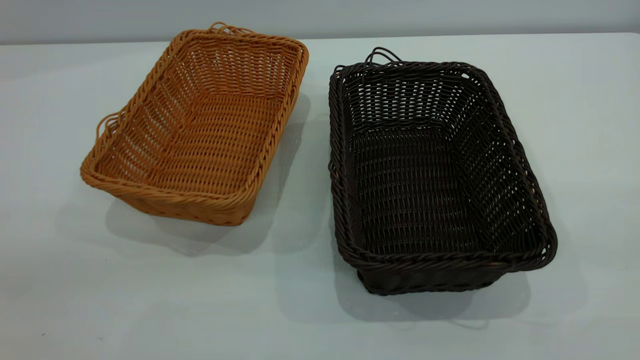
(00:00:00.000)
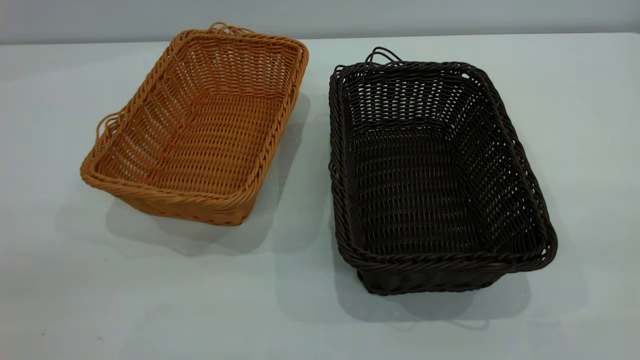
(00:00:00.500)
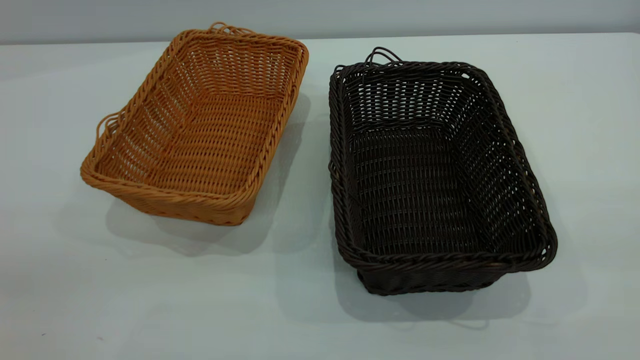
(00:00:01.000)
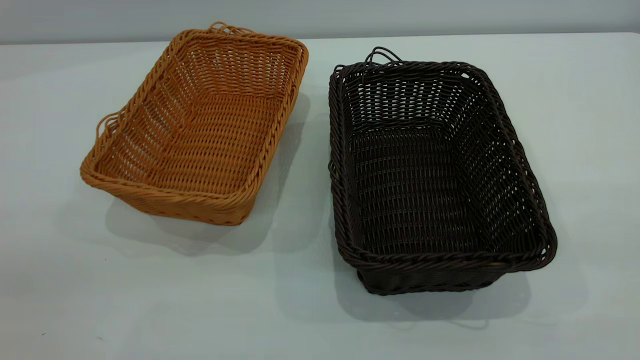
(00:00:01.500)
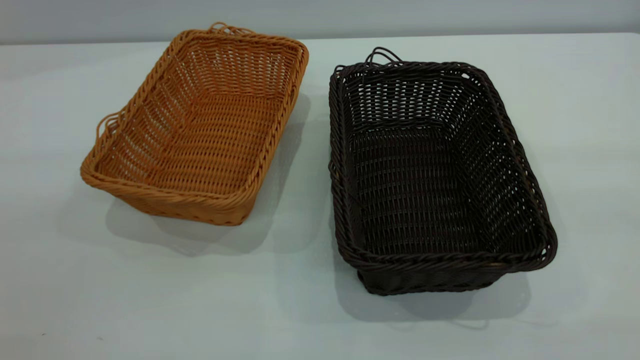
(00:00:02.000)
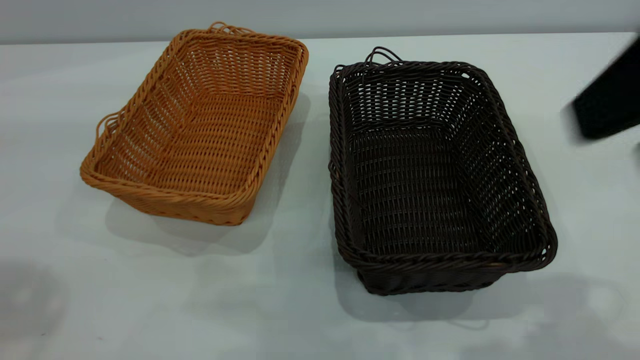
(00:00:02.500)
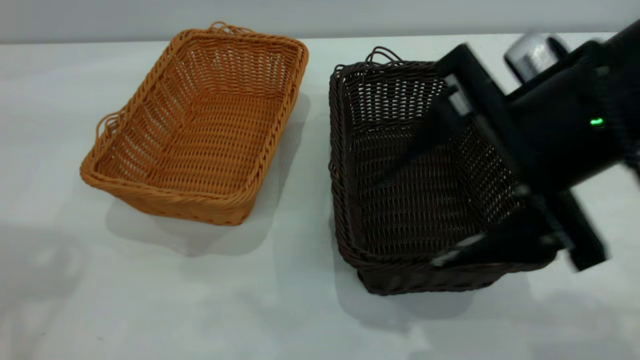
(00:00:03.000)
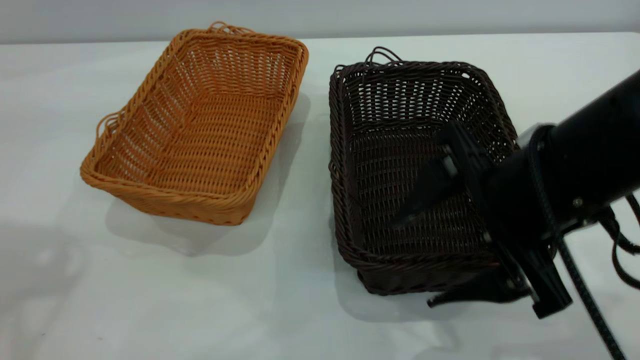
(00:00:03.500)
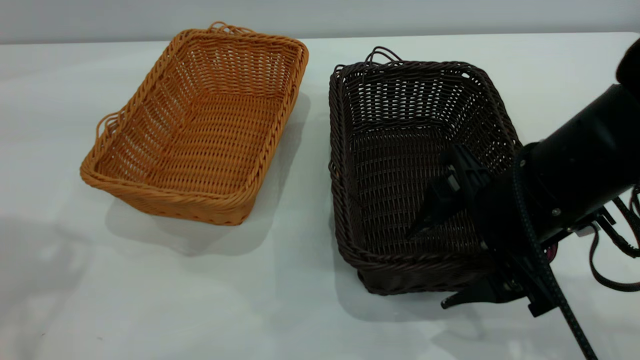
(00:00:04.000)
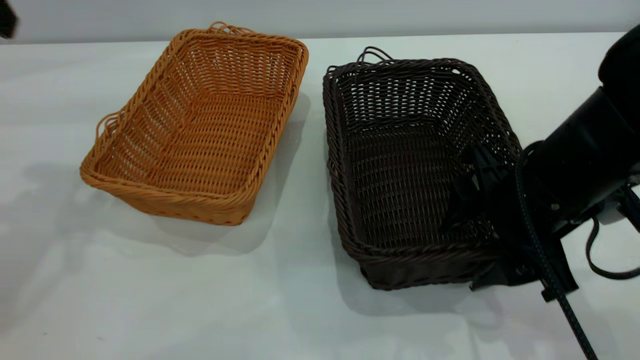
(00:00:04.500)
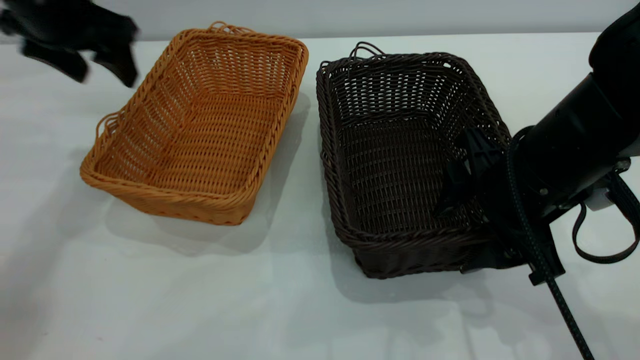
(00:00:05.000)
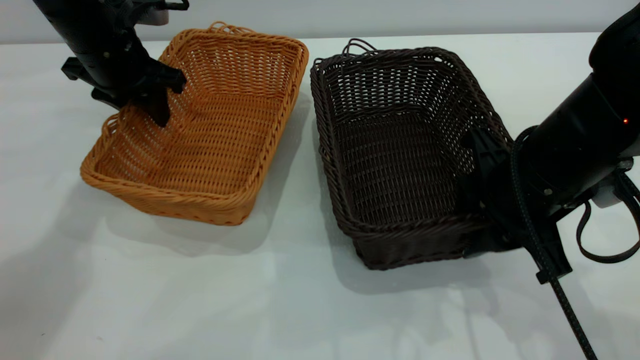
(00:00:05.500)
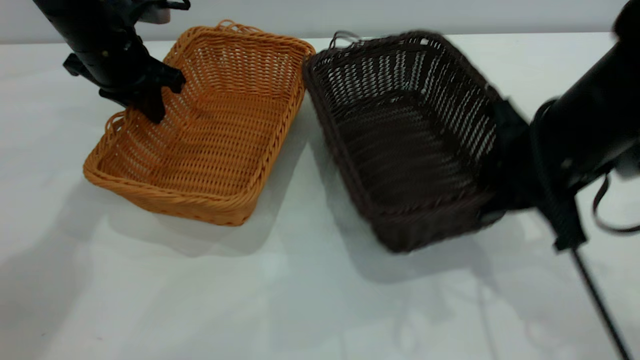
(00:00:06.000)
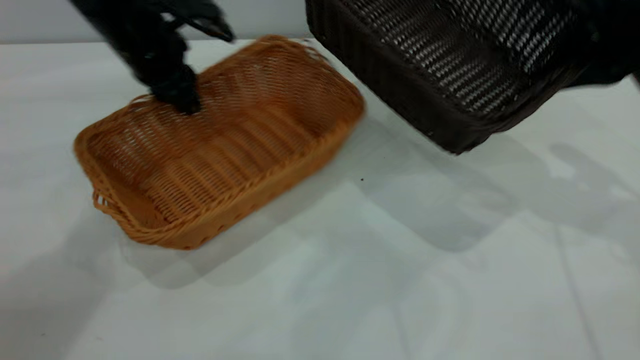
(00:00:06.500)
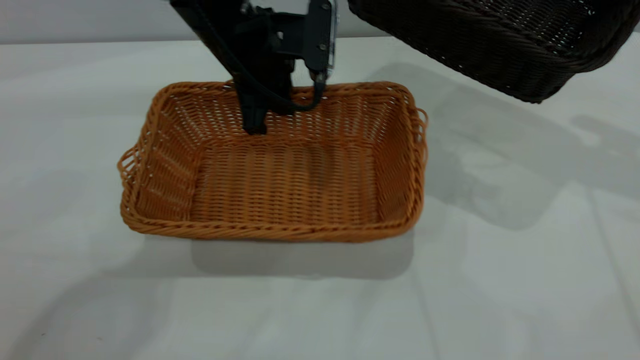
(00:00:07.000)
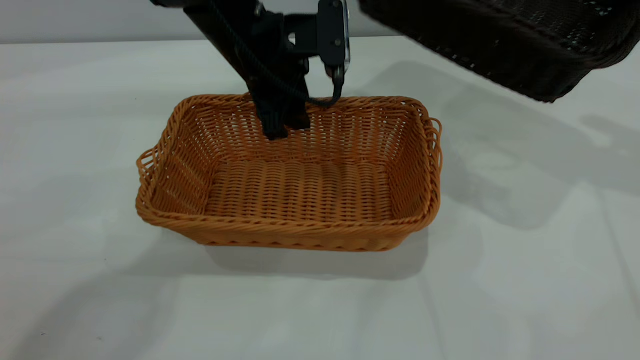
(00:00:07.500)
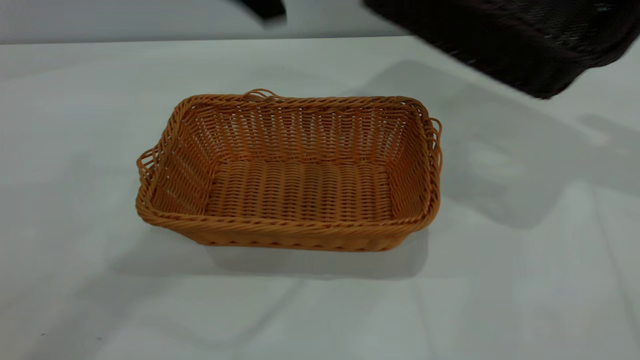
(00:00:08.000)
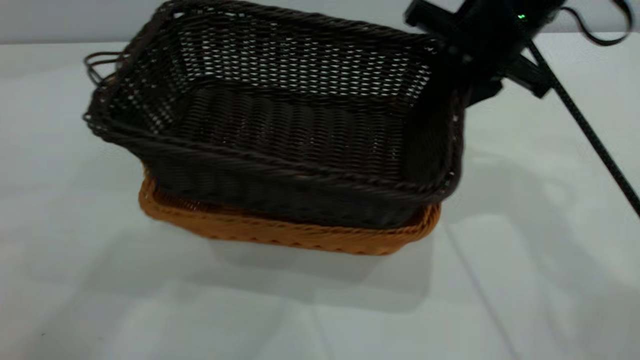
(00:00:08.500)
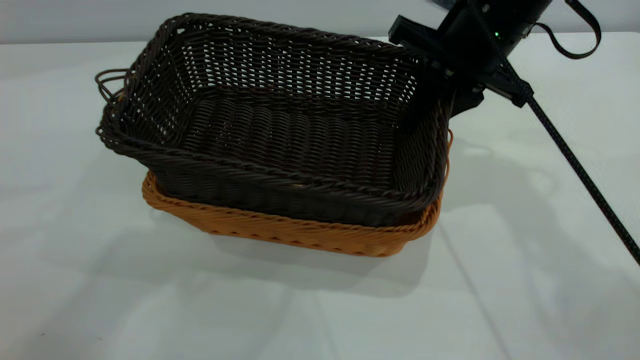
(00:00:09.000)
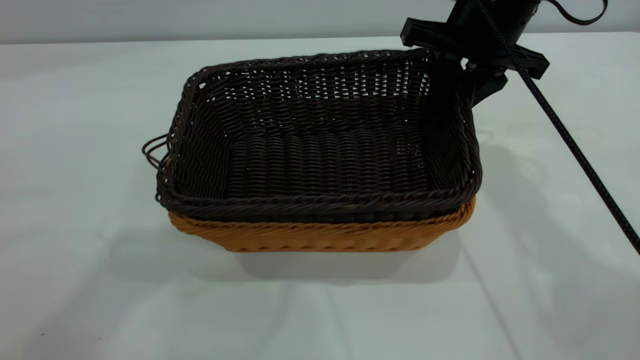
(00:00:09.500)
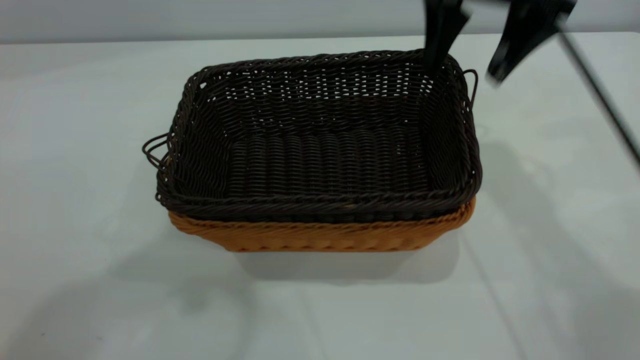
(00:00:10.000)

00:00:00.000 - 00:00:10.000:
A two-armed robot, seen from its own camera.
Task of the whole recording: the left gripper grasp the brown basket and place it in the center of the table, the right gripper grasp the black basket and place it inside the brown one.
Step, 00:00:00.000 - 00:00:06.000: Pick up the light basket with the right gripper.
Step, 00:00:06.500 - 00:00:07.500: Place the light-colored basket in the center.
Step, 00:00:08.000 - 00:00:09.500: Place the dark basket on top of the light basket.
00:00:02.000 - 00:00:04.000: The right gripper moves downward, forward and to the left, about 30 cm.
00:00:04.000 - 00:00:06.000: The left gripper goes about 30 cm downward and forward, and closes its fingers. The right gripper shifts by some 5 cm, and closes its fingers.
00:00:06.000 - 00:00:08.000: The right gripper moves upward, to the right and forward, about 20 cm. The left gripper is displaced upward, to the right and backward by about 30 cm, and opens up.
00:00:08.000 - 00:00:10.000: The right gripper is displaced to the left by about 15 cm, and opens its fingers. Meanwhile the left gripper goes roughly 20 cm upward, backward and to the left.

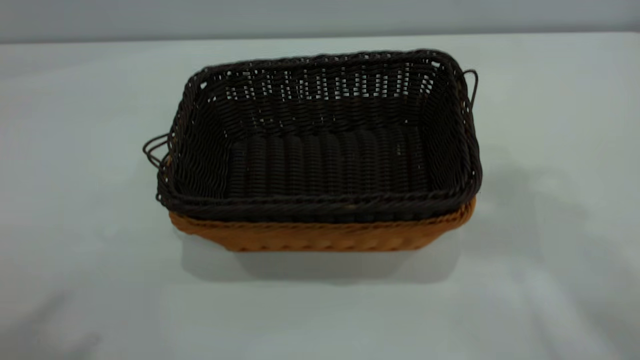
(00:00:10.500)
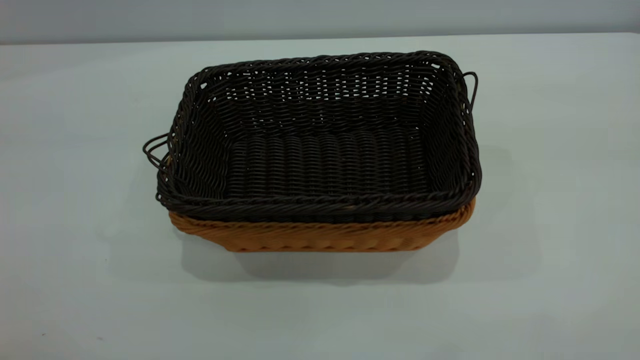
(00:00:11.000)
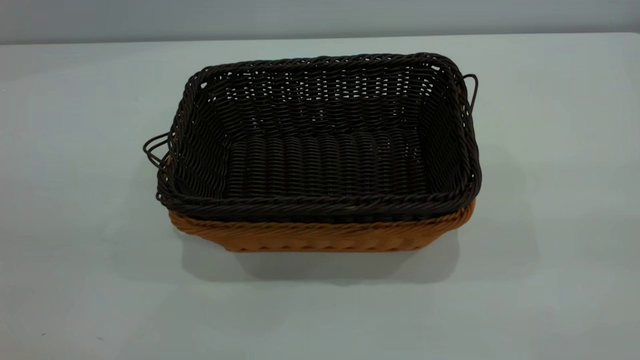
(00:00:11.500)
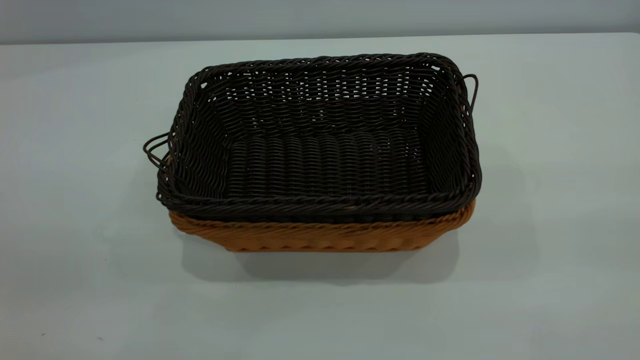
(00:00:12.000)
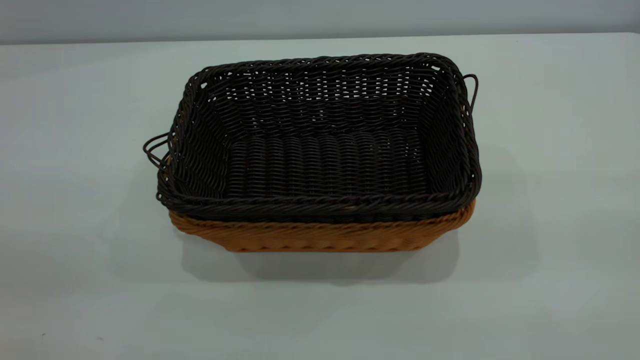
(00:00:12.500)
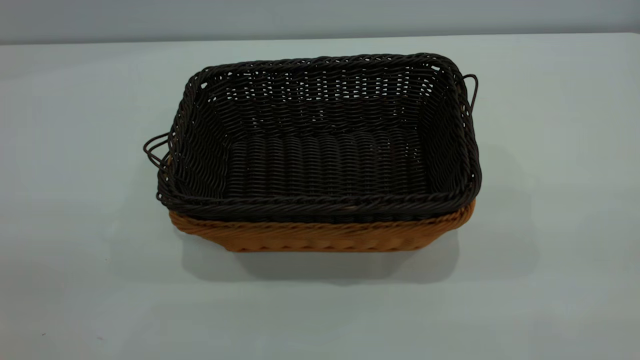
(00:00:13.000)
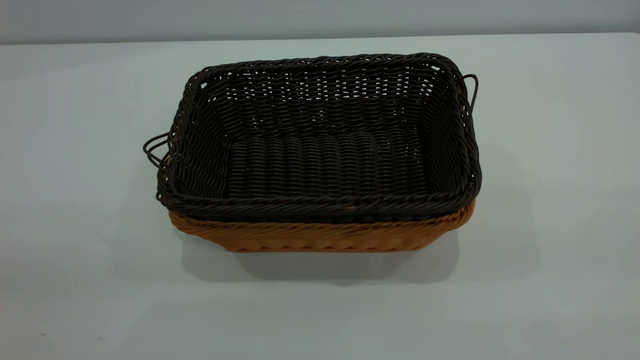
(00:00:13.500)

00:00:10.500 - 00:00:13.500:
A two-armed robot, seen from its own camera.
Task of the whole recording: the left gripper grasp the brown basket and place it in the center of the table, the right gripper grasp the black basket and place it inside the brown one.
00:00:10.500 - 00:00:12.000: The right gripper is displaced backward and downward by roughly 25 cm.
